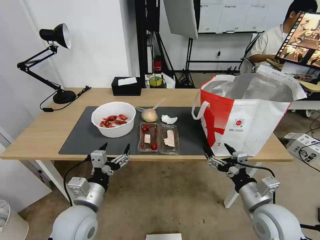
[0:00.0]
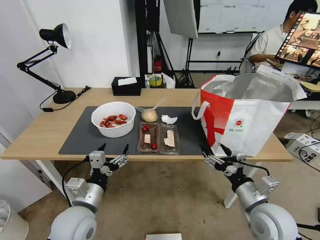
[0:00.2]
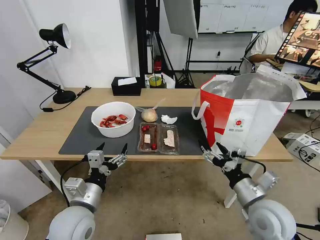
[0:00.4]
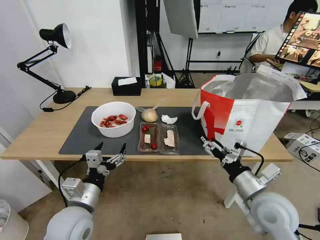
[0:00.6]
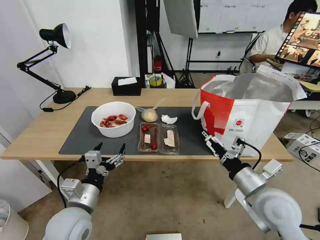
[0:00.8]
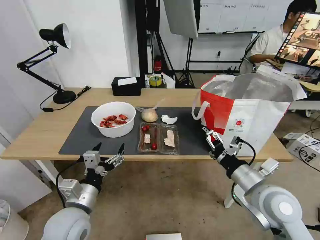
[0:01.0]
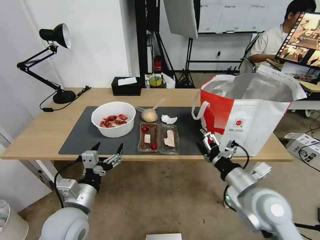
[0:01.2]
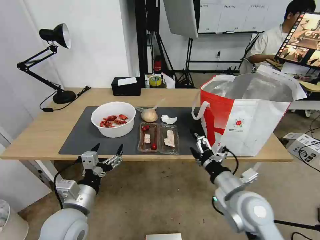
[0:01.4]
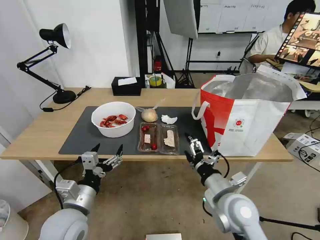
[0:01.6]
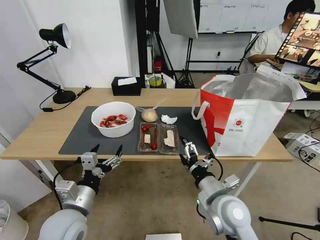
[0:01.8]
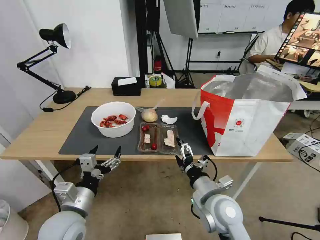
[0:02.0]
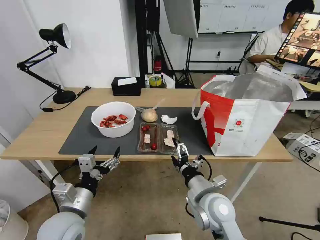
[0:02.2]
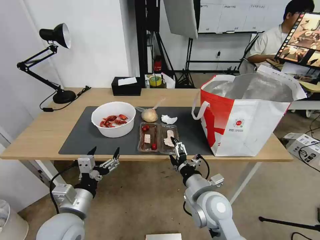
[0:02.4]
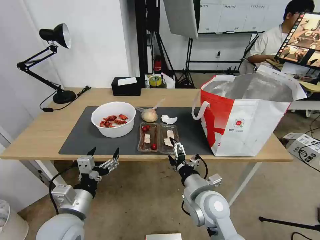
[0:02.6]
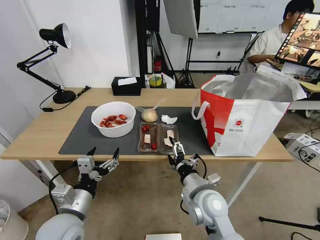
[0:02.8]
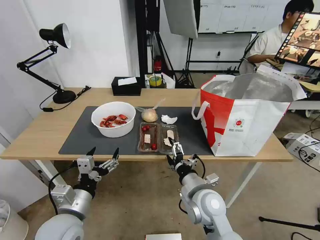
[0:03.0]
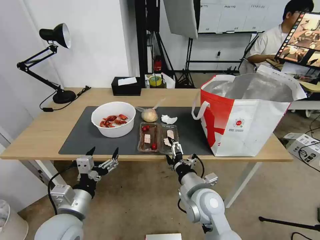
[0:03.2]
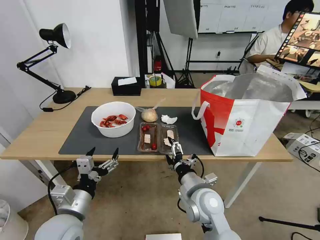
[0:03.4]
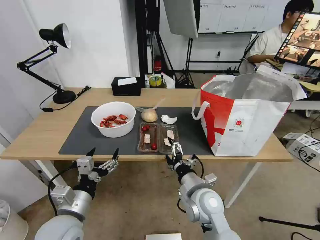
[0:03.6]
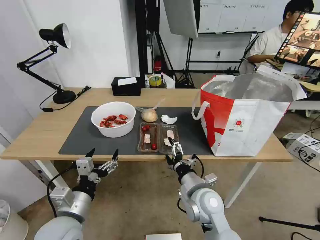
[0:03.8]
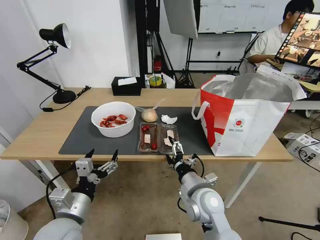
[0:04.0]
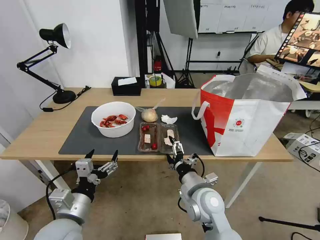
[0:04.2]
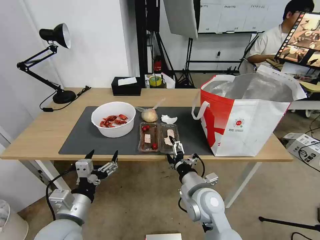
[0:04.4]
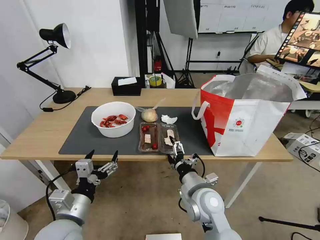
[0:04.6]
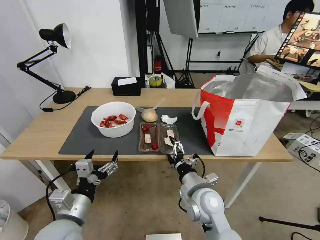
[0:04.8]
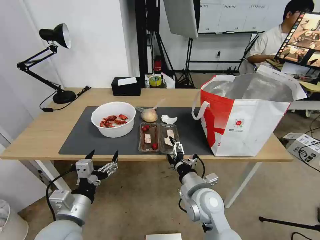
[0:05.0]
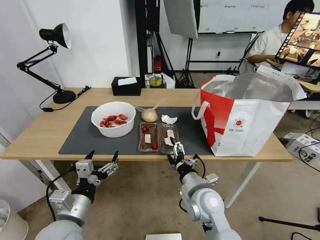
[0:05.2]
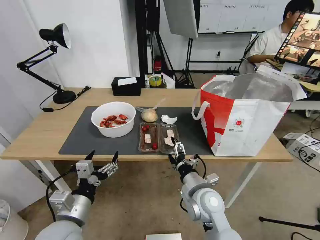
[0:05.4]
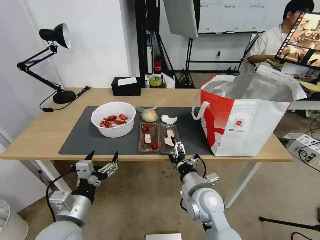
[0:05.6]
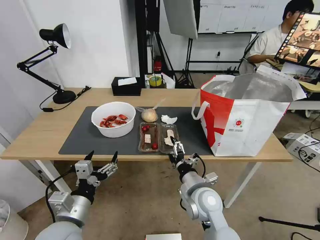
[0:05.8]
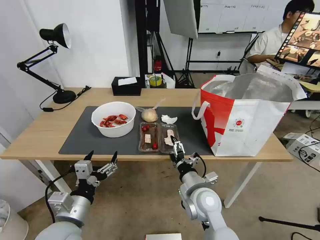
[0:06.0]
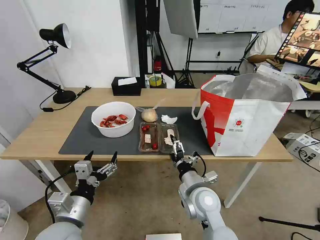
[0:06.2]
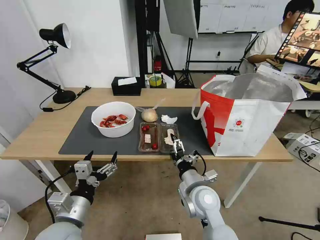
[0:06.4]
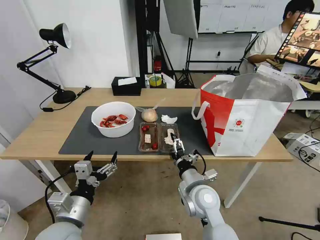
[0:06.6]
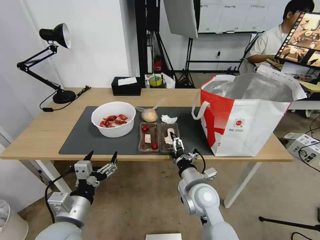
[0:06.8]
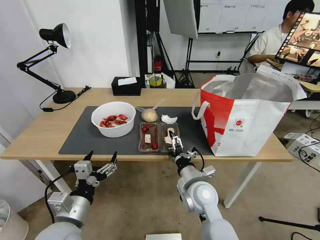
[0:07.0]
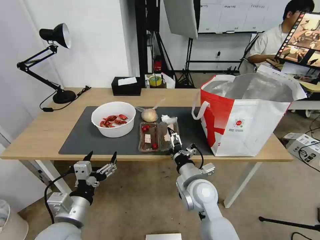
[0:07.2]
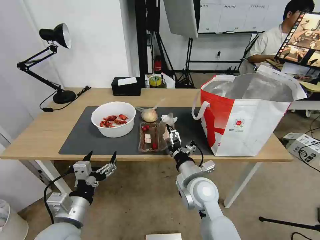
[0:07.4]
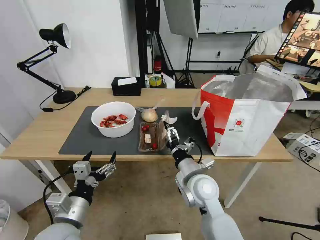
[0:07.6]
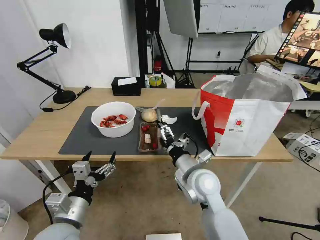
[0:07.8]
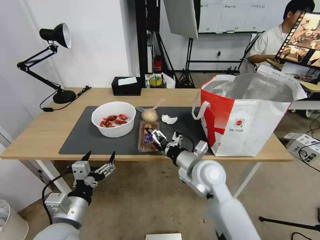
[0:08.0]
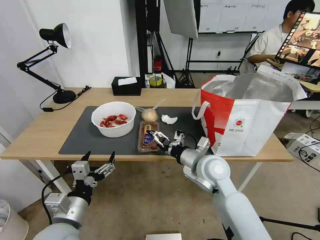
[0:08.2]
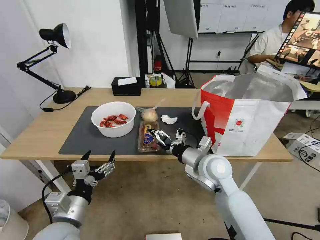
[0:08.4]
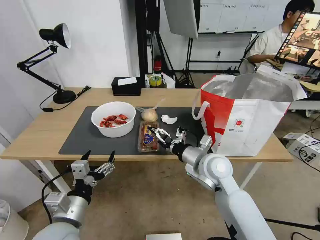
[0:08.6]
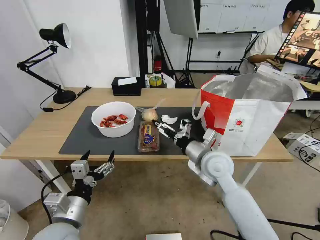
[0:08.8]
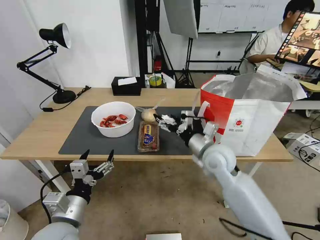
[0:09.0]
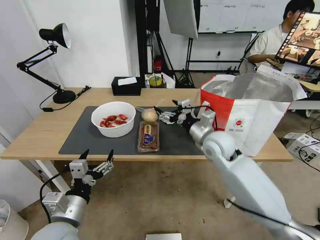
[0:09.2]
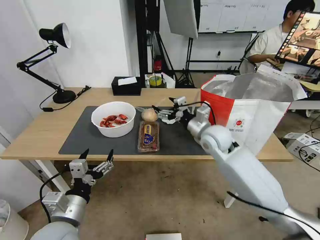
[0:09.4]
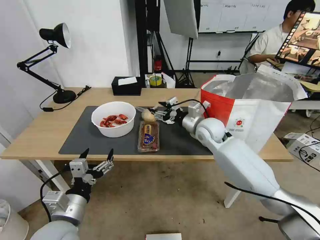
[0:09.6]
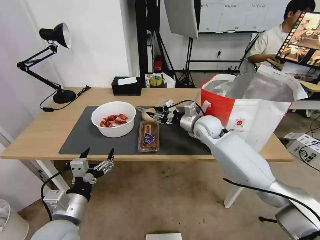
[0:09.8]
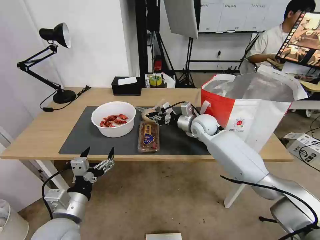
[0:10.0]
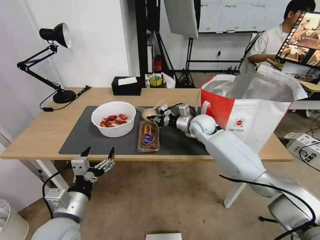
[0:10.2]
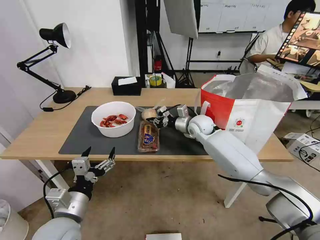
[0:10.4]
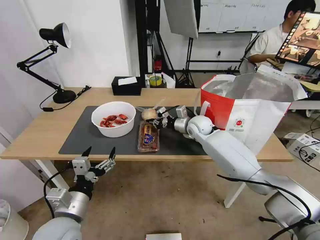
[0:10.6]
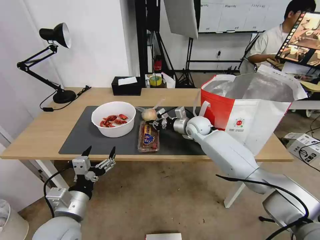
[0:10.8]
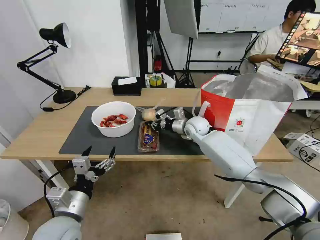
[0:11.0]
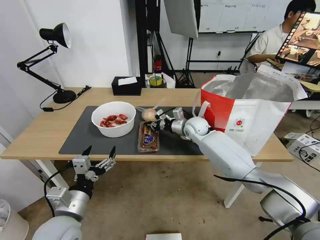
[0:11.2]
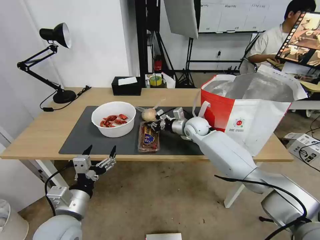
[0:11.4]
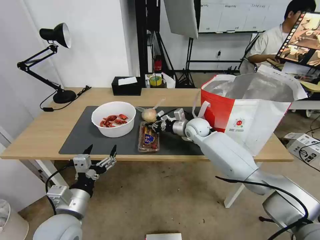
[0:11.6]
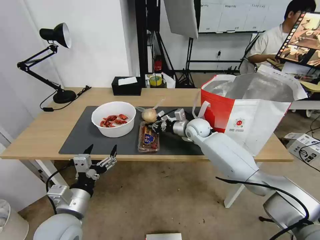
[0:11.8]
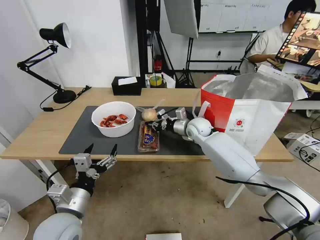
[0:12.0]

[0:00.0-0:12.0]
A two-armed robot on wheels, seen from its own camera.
Task of the whole recording: Pick up the trash from the table and place it into the takeout bag.
0:00.0 to 0:01.6: The right gripper is displaced to the left by about 10 cm.
0:01.6 to 0:03.0: The right gripper travels to the left by approximately 5 cm.
0:03.0 to 0:04.4: Neither gripper changes place.
0:04.4 to 0:07.6: The grippers make only small movements.
0:07.6 to 0:09.0: The right gripper heads forward, upward and to the right, covering approximately 10 cm.
0:09.0 to 0:10.4: The right gripper moves forward, about 15 cm, and closes up.
0:10.4 to 0:12.0: The grippers move only a little.

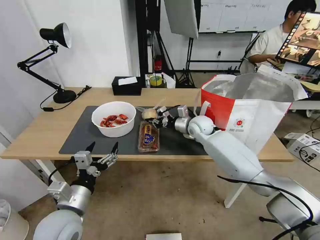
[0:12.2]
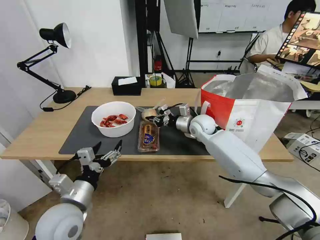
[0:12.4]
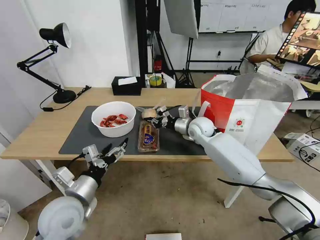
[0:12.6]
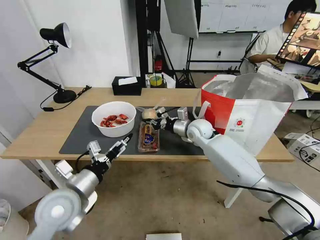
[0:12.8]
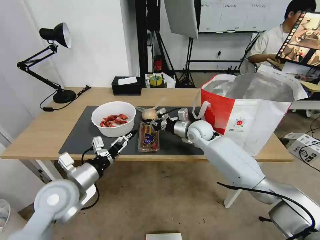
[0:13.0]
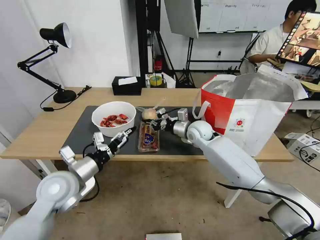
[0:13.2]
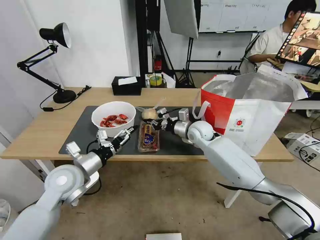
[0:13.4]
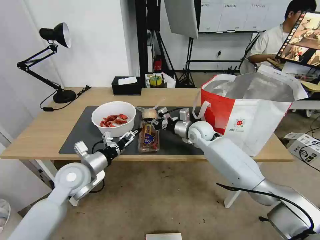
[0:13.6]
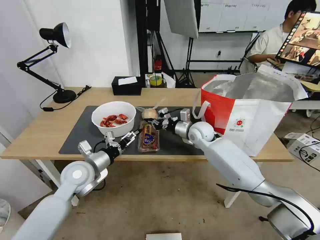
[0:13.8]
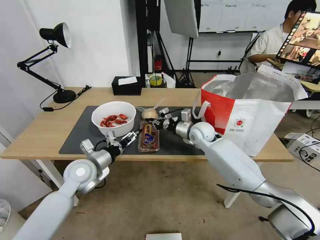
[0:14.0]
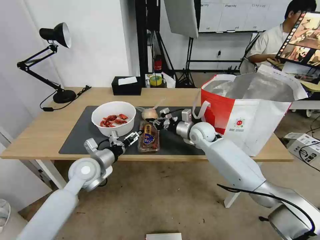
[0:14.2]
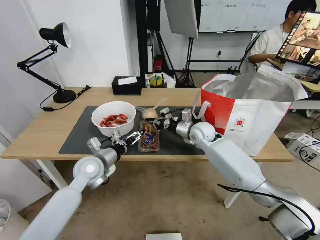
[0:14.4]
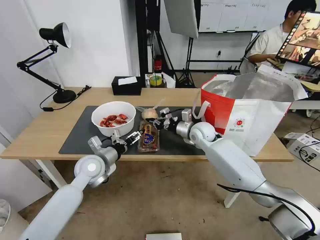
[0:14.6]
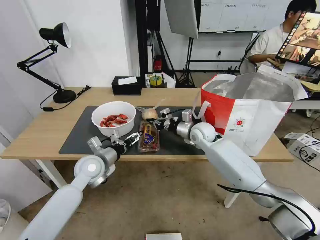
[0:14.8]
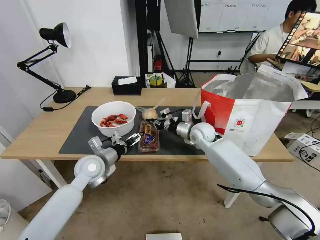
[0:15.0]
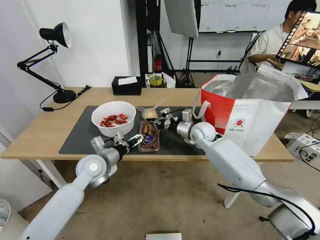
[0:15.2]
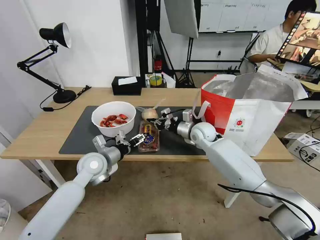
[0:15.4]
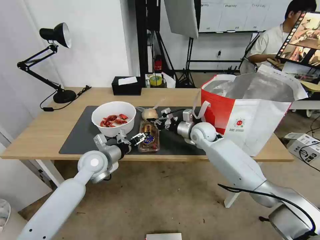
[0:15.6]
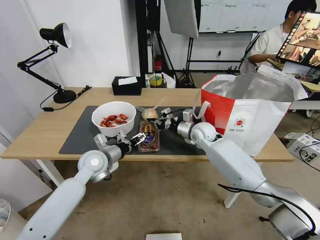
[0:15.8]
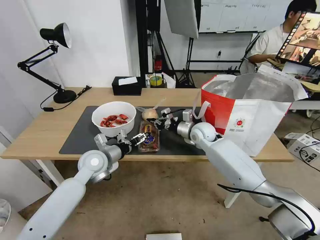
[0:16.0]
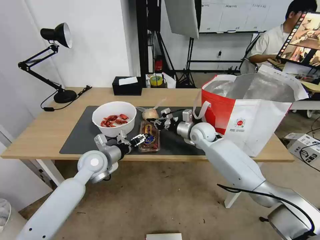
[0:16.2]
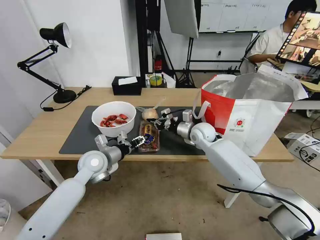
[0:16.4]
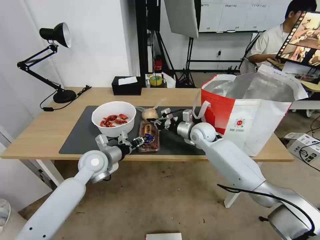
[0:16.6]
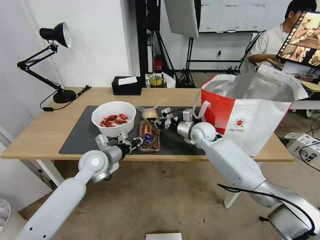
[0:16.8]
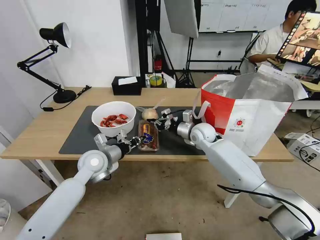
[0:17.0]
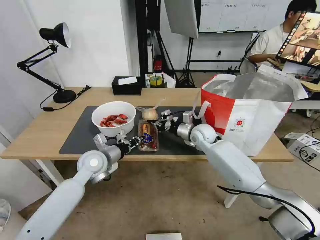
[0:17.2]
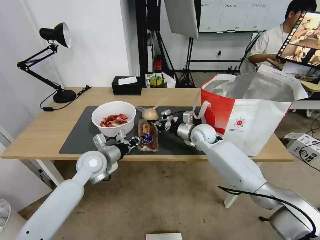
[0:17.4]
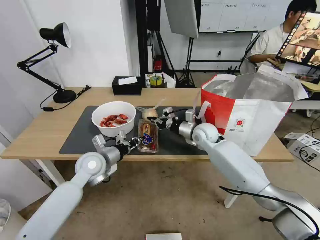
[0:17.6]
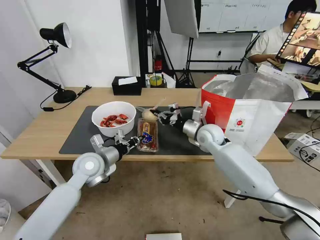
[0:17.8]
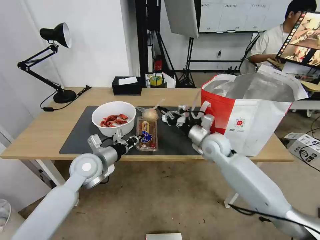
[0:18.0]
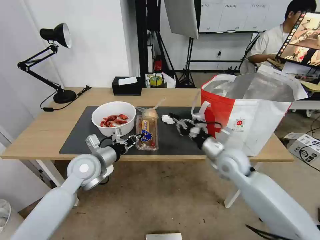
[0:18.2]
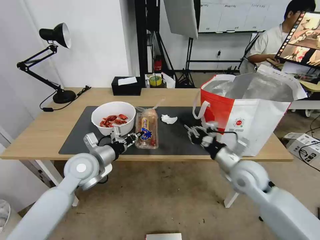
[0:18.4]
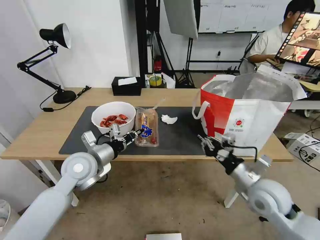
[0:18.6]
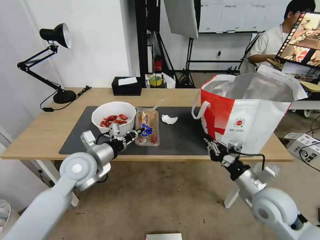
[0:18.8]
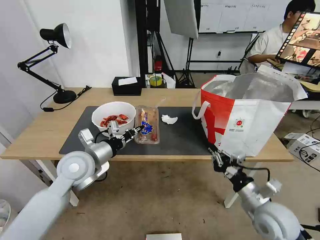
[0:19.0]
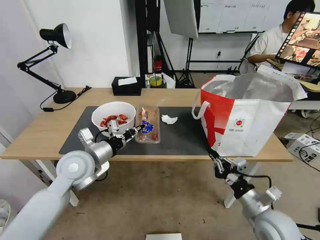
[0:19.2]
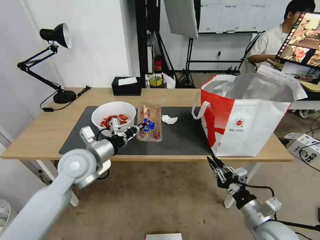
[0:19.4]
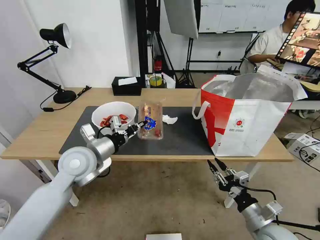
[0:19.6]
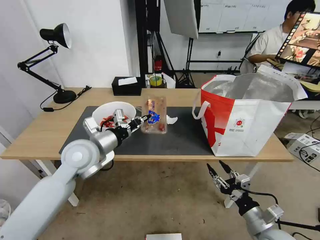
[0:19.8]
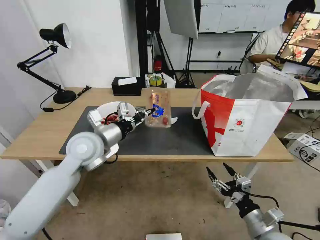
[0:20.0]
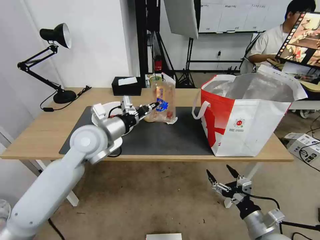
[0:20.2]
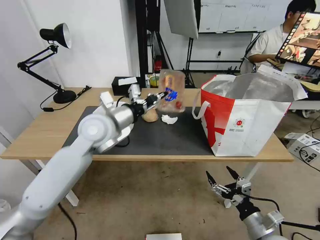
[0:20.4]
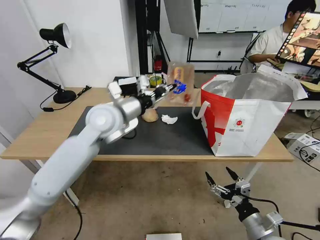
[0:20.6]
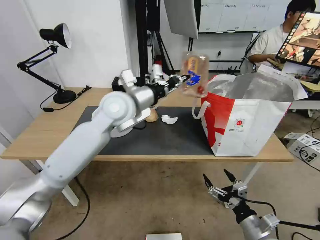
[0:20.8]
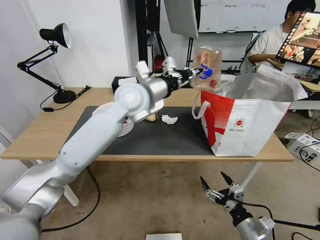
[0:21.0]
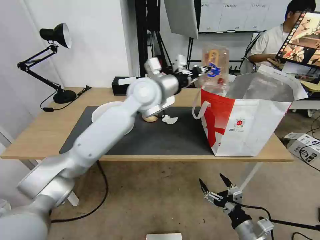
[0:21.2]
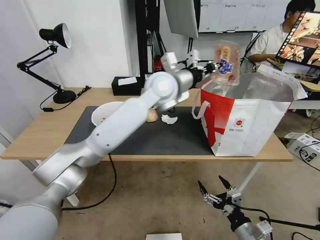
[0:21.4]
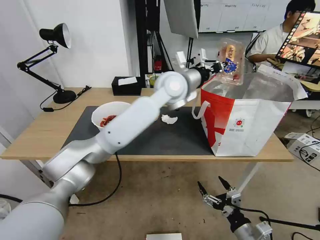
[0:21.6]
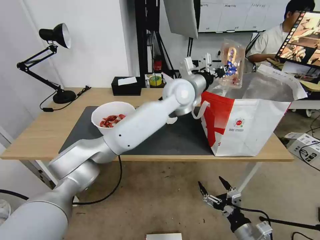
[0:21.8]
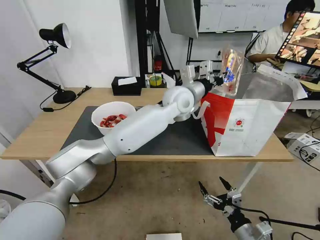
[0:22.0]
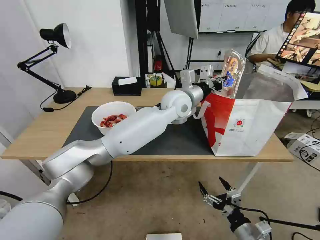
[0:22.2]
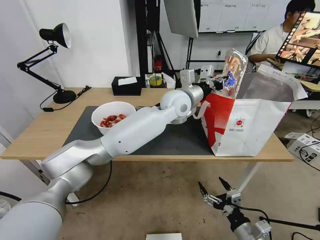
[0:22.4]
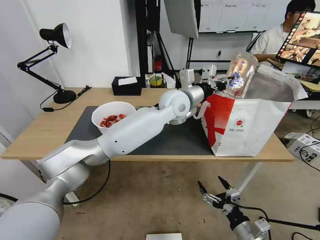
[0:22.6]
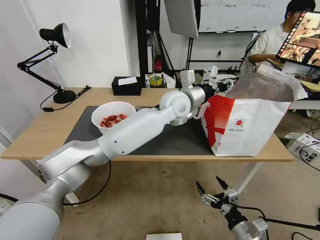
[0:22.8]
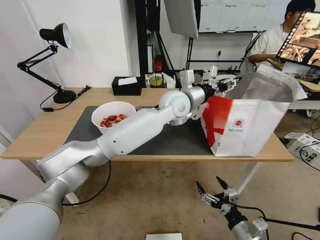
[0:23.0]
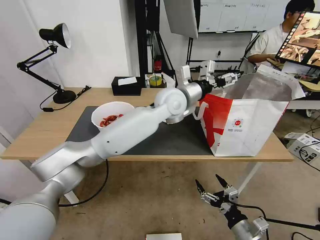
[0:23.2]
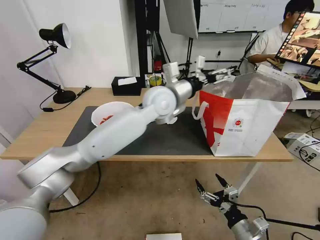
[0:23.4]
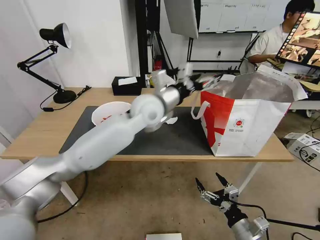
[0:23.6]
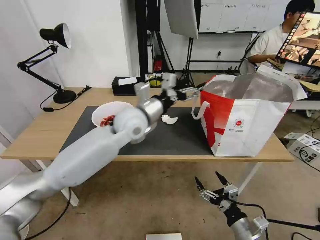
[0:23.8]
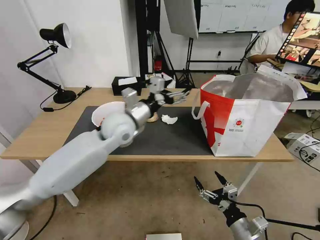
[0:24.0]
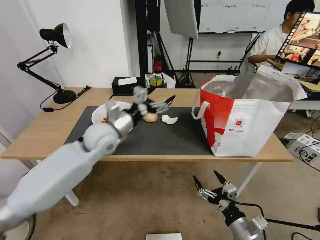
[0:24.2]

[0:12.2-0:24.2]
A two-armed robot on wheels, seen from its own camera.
Task of the whole recording: Pick up the trash from the table and place it into the takeout bag.
0:12.2 to 0:13.8: The left gripper heads forward, covering about 15 cm.
0:13.8 to 0:15.2: The grippers move only a little.
0:15.2 to 0:16.6: The left gripper closes up.
0:16.6 to 0:18.2: The right gripper shifts approximately 15 cm backward, while the left gripper closes up.
0:18.2 to 0:19.8: The left gripper is displaced upward by roughly 5 cm, while the right gripper heads backward, downward and to the right, covering approximately 25 cm, and opens.
0:19.8 to 0:21.2: The left gripper heads to the right, upward and forward, covering about 25 cm. The right gripper opens up.
0:21.2 to 0:22.6: The left gripper heads to the right and downward, covering approximately 10 cm.
0:22.6 to 0:24.2: The left gripper travels to the left by some 20 cm, and opens its fingers.
